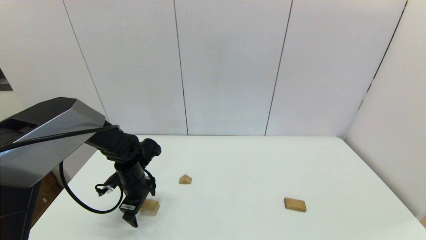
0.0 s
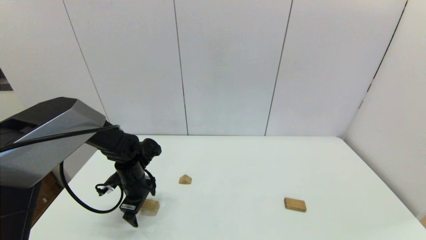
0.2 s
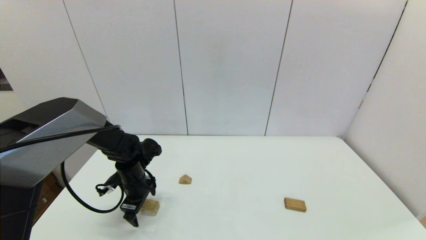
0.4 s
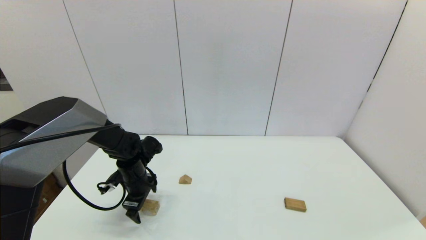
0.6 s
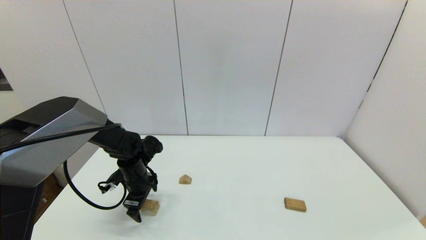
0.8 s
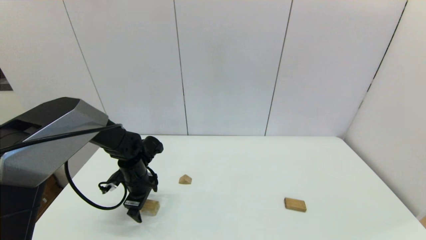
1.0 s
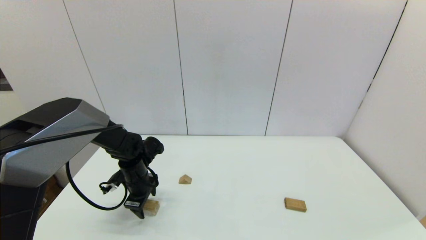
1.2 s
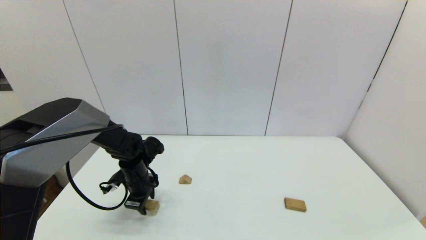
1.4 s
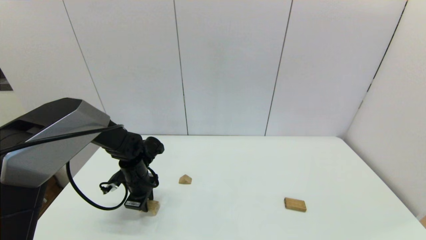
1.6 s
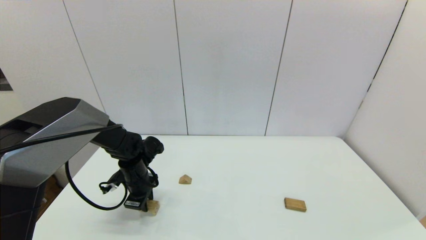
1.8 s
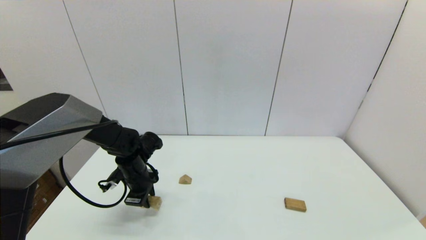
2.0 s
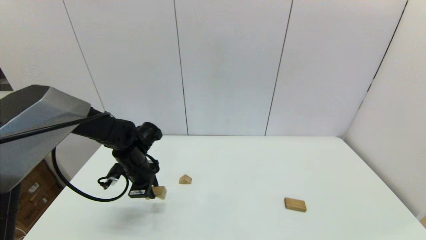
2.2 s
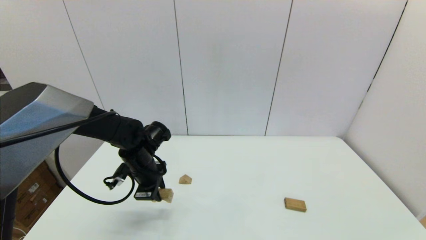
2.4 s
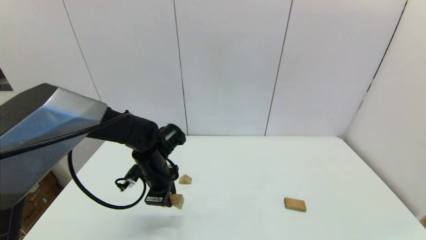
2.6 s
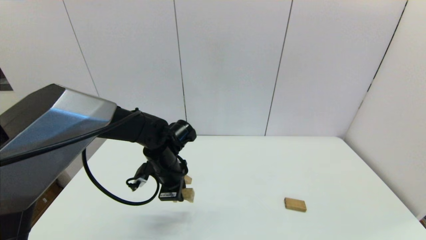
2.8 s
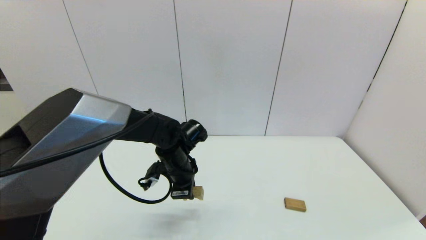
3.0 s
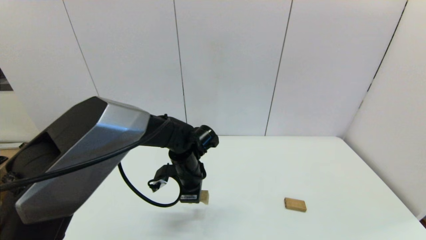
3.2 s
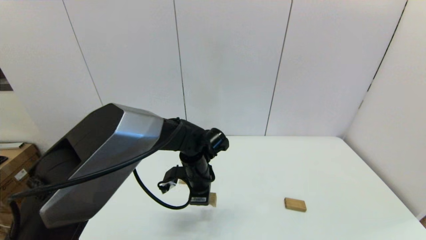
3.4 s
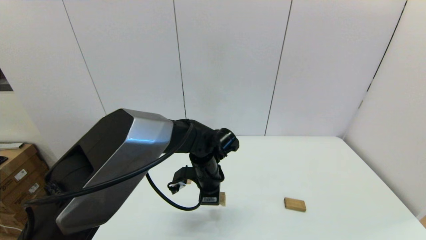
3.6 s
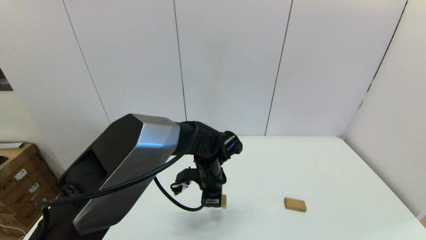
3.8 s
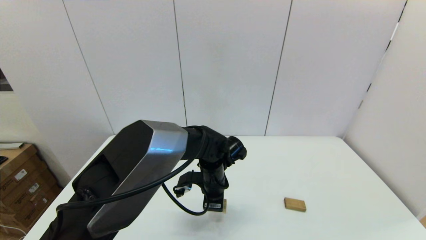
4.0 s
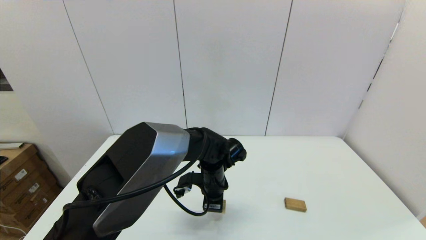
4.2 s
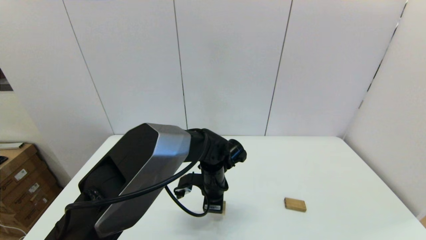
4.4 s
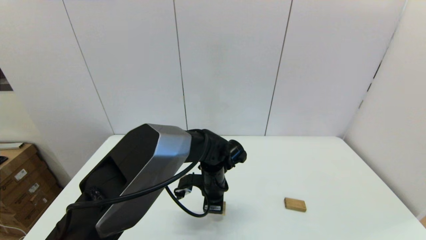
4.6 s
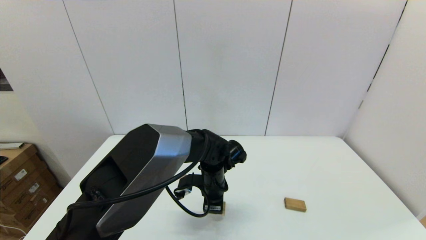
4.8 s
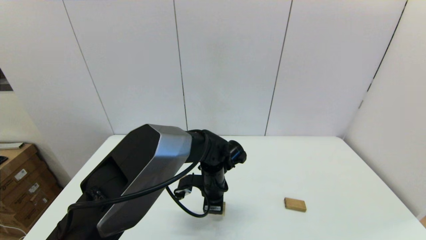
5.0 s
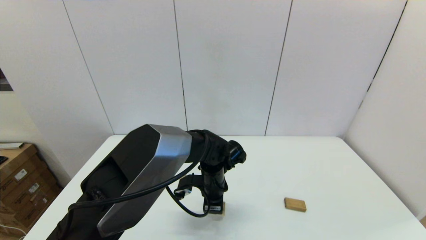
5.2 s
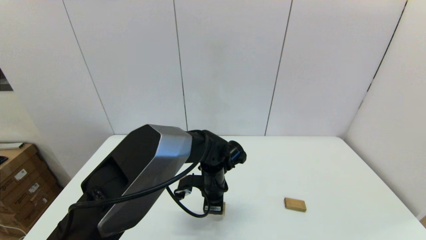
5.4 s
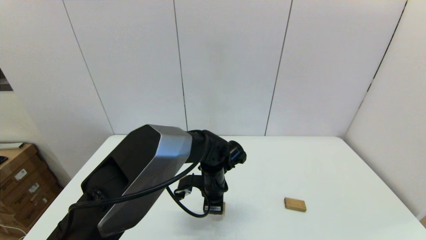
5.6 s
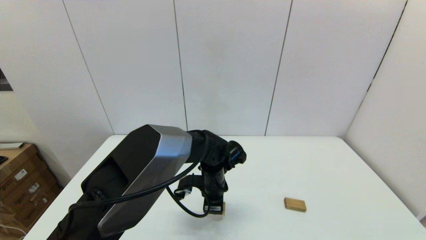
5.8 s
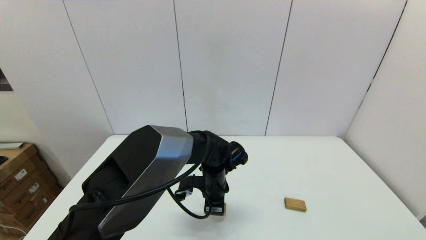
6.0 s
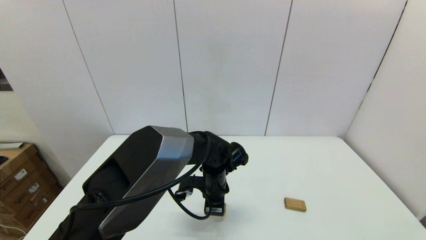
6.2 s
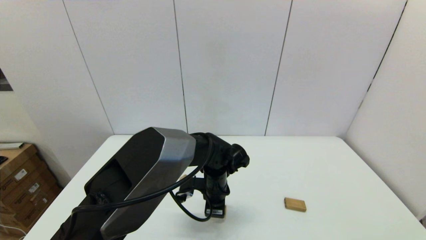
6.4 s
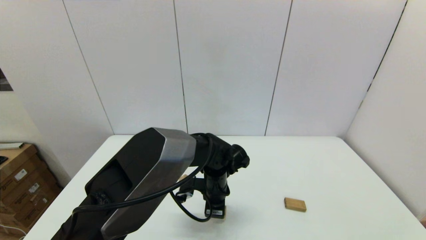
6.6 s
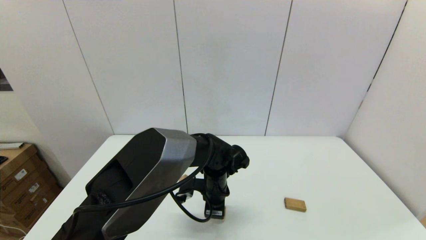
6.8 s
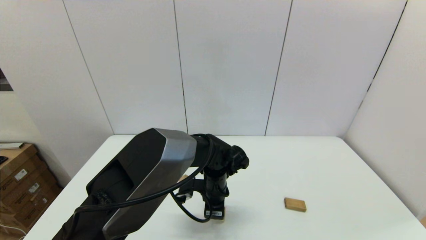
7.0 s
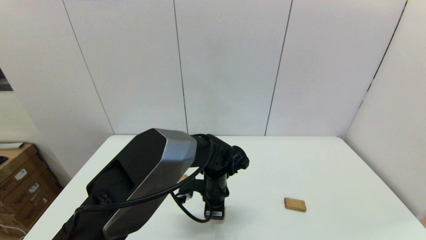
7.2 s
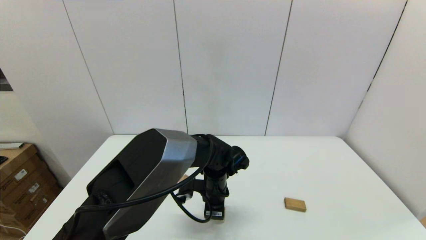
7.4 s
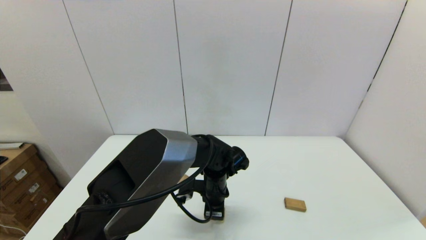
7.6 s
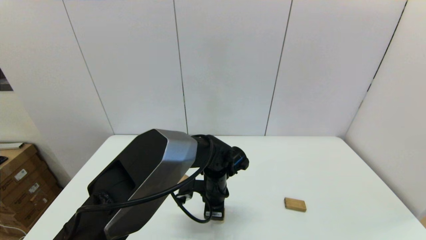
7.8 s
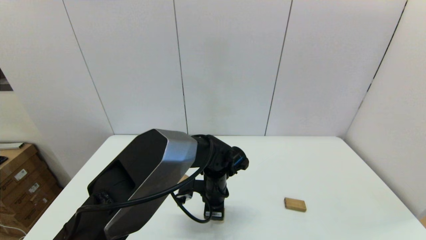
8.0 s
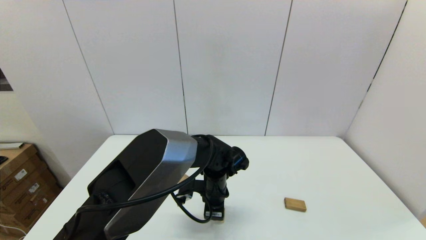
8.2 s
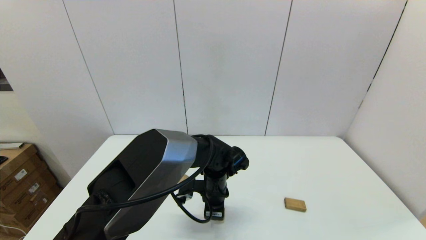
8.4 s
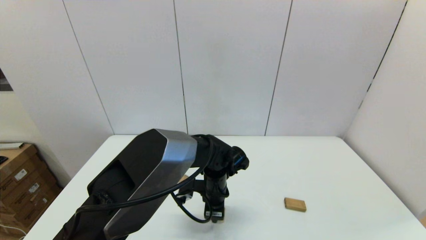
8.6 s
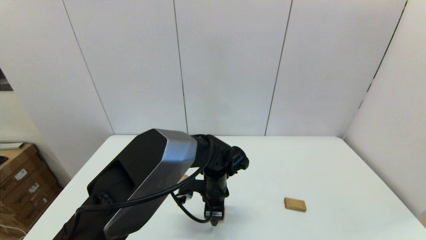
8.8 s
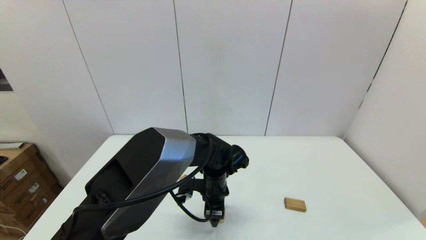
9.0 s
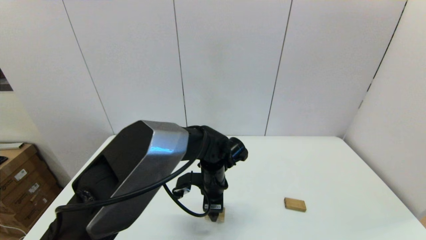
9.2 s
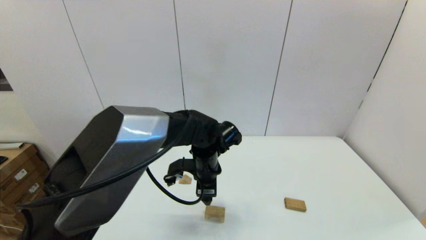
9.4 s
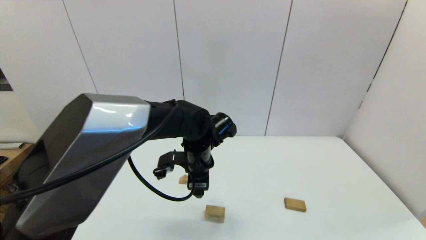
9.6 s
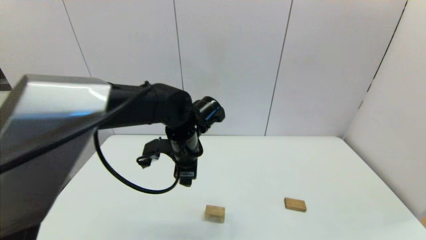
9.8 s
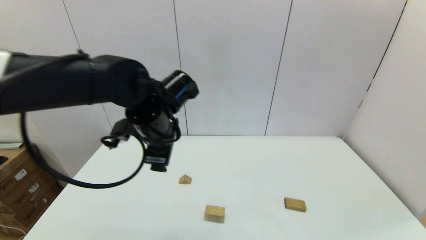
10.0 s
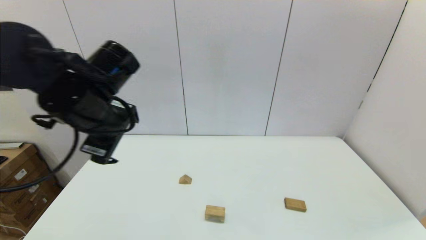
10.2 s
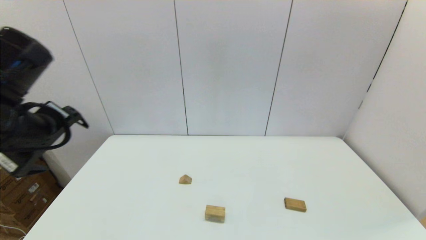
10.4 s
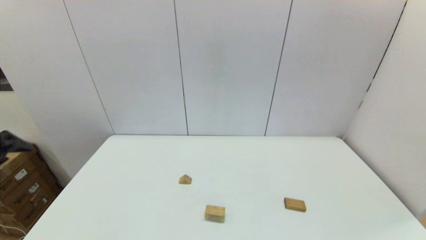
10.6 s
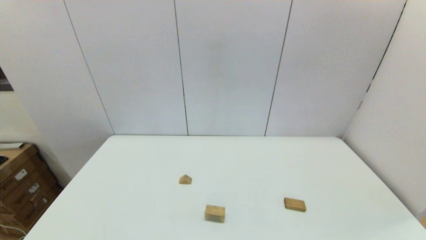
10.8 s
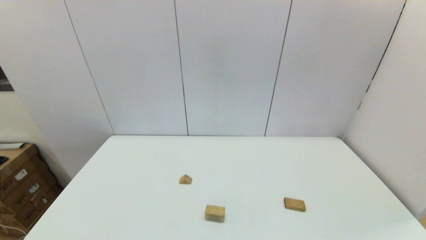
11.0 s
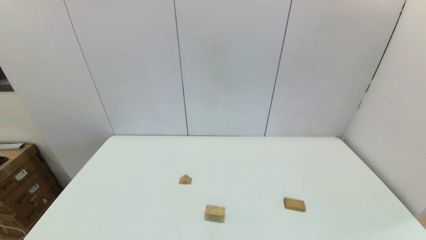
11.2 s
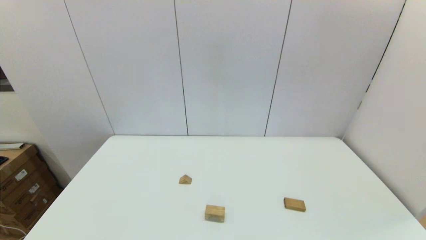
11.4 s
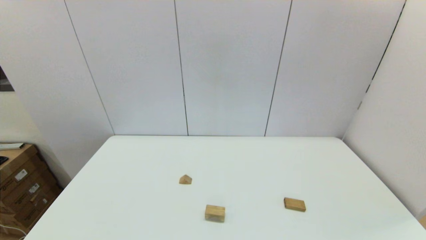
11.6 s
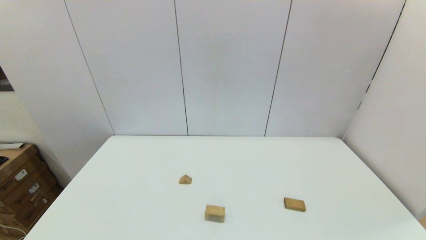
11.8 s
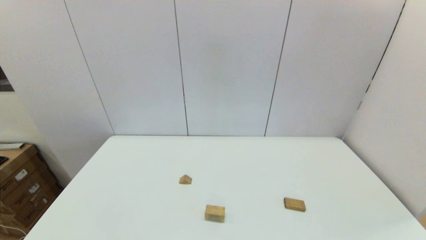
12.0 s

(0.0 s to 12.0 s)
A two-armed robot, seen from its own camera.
Task of the whole recording: place the arched building blocks in the center of the table, set up the rectangular building blocks, and then set up the triangular building blocks.
Step, 1.8 s - 8.6 s: Place the arch-shaped block in the center of view with the left gripper.
0.0 s - 1.6 s: The left gripper closes.
1.6 s - 3.0 s: The left gripper travels to the right and upward by approximately 15 cm.
3.0 s - 4.4 s: The left gripper shifts roughly 10 cm to the right.
4.4 s - 6.0 s: The two grippers keep their place.
6.0 s - 7.6 s: Both grippers stay about where they are.
7.6 s - 9.0 s: The left gripper opens its fingers.
9.0 s - 10.4 s: The left gripper goes about 40 cm to the left, upward and backward.
10.4 s - 12.0 s: The left gripper moves backward and downward, some 30 cm.

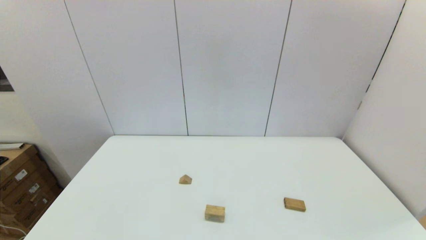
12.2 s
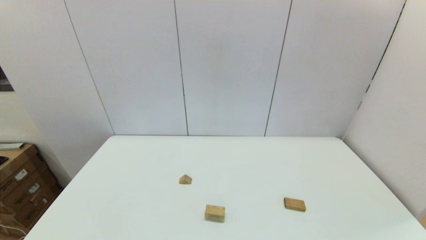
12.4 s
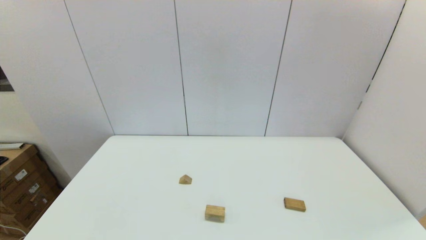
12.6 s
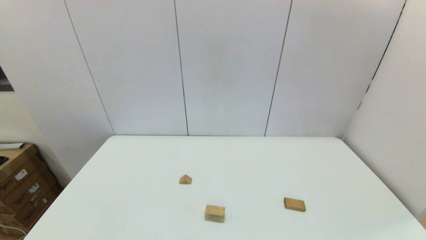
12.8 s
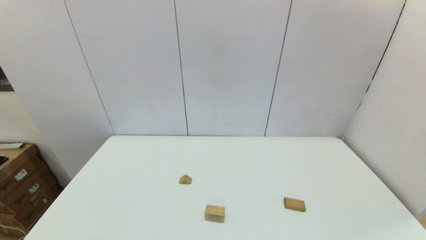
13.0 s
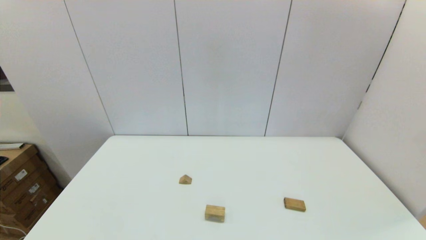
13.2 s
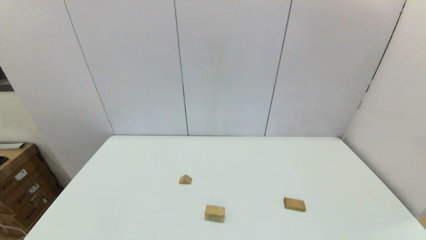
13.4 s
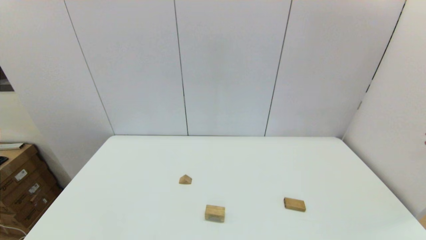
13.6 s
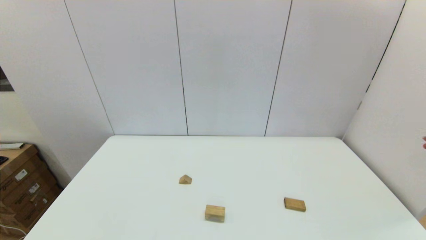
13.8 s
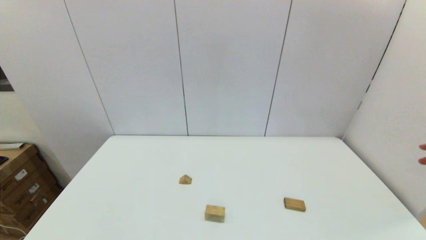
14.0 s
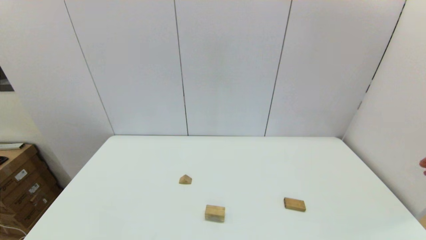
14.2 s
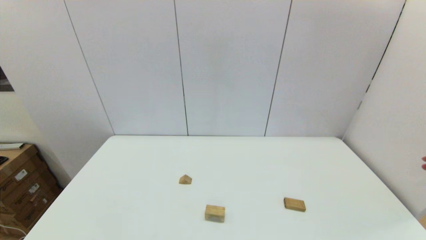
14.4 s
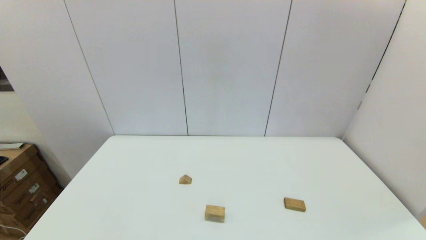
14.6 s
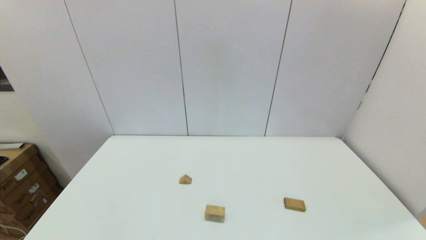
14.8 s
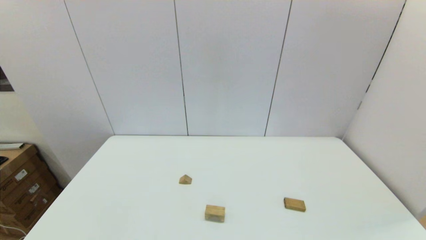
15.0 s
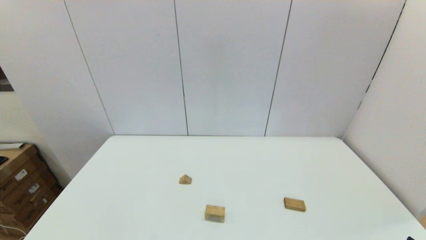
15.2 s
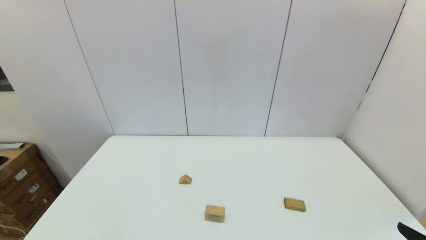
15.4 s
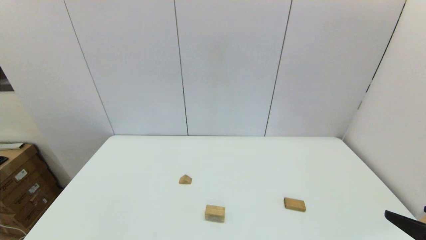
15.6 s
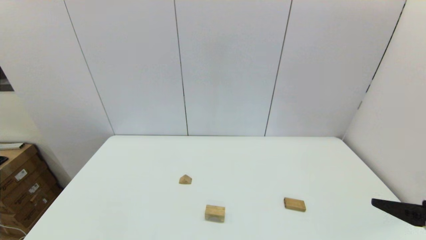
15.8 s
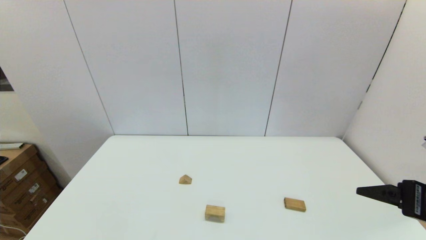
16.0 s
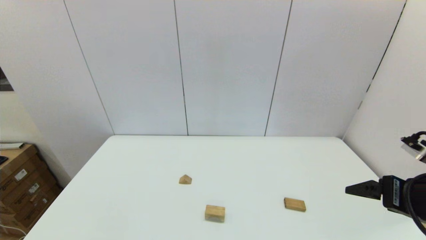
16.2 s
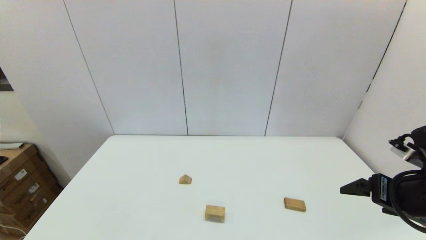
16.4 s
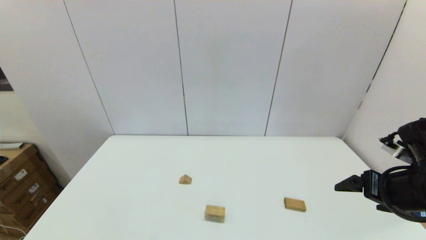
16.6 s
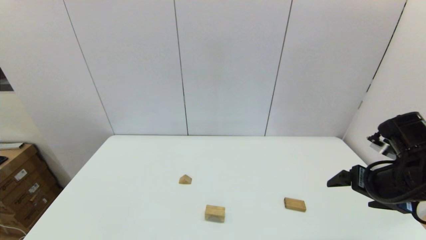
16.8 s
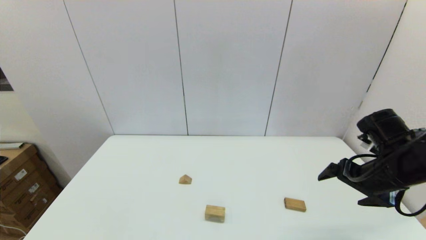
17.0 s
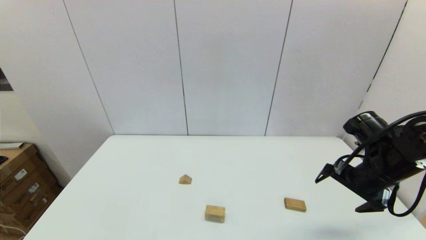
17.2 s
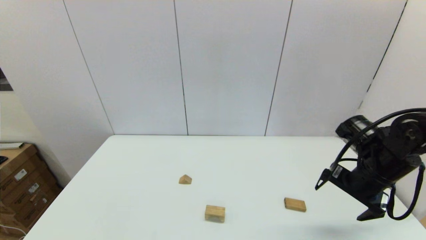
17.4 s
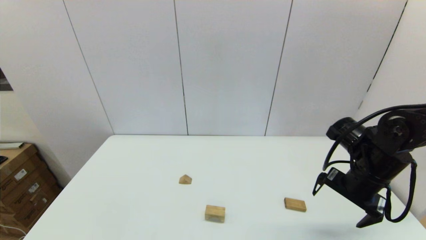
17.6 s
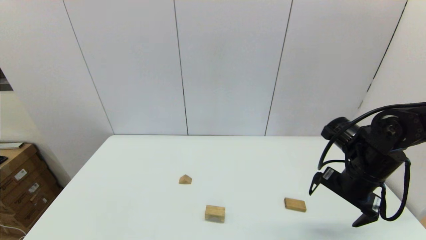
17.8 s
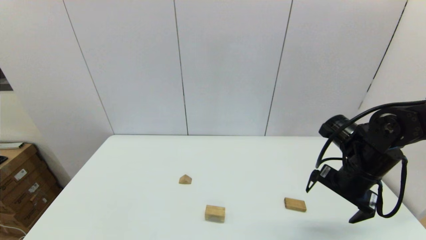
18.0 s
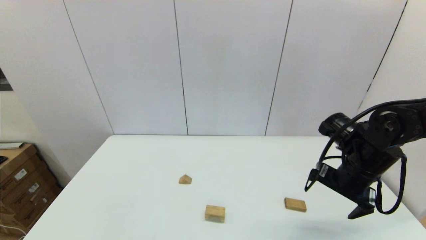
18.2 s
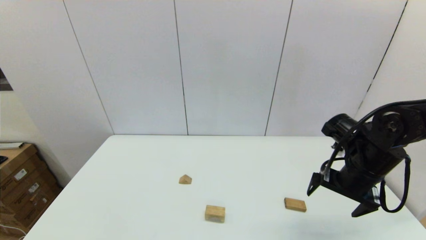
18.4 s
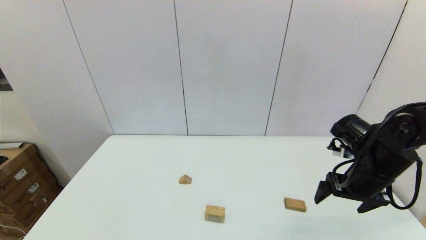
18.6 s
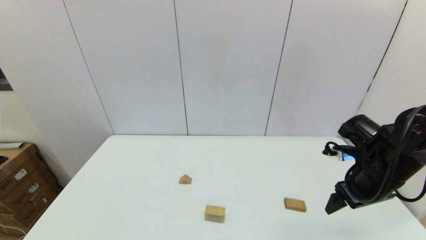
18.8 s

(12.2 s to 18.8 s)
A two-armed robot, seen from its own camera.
Task of the whole recording: place the arched building blocks in the center of the table, set up the rectangular building blocks, and then set up the triangular building blocks.
15.4 s - 17.2 s: The right gripper is displaced forward by some 20 cm.
